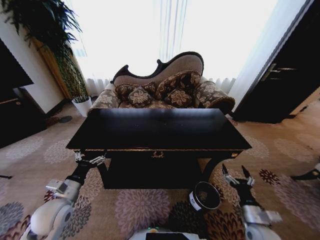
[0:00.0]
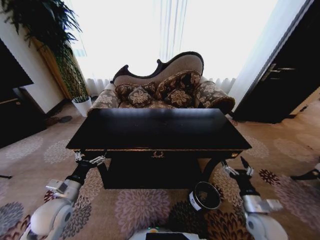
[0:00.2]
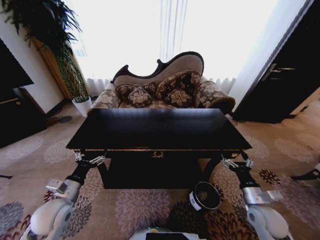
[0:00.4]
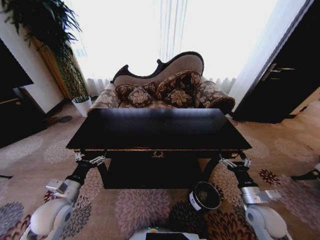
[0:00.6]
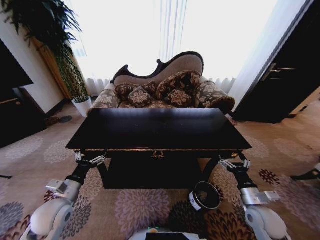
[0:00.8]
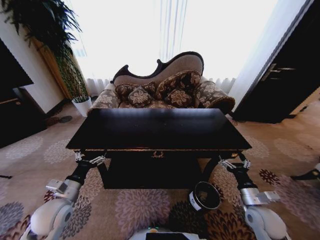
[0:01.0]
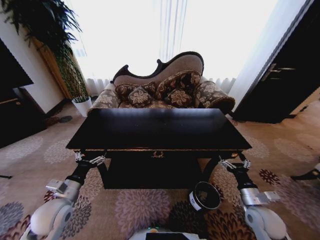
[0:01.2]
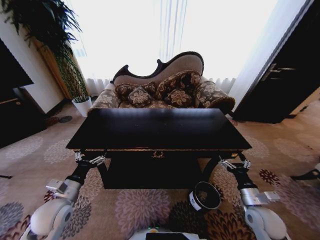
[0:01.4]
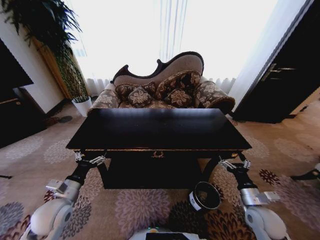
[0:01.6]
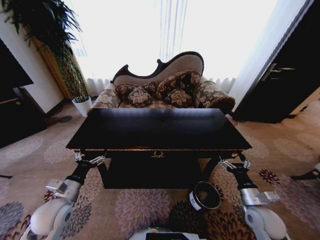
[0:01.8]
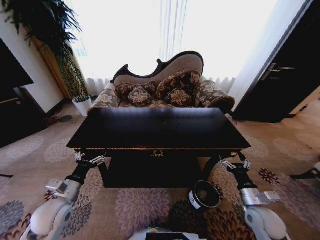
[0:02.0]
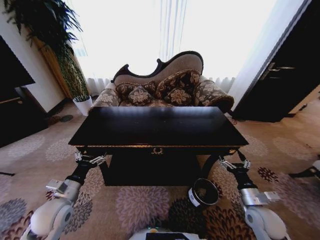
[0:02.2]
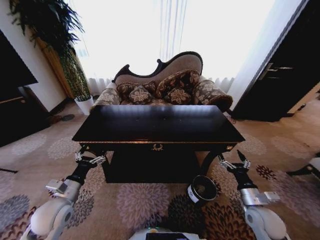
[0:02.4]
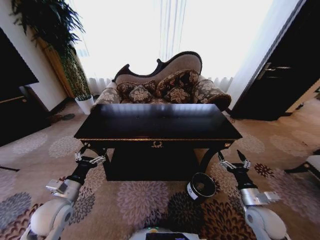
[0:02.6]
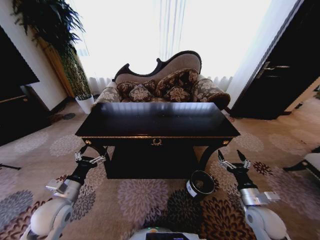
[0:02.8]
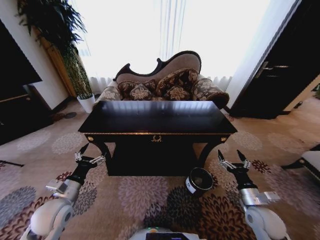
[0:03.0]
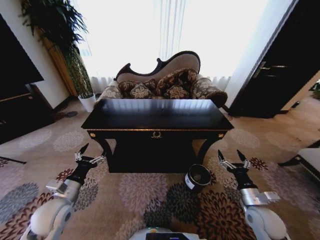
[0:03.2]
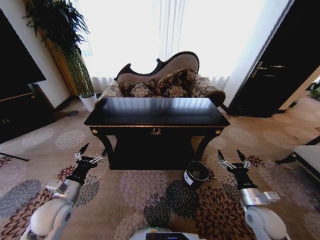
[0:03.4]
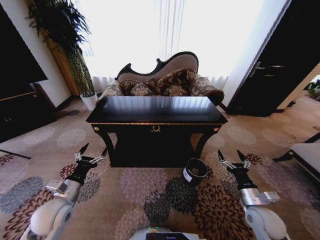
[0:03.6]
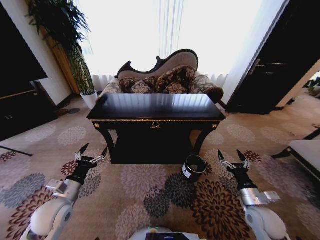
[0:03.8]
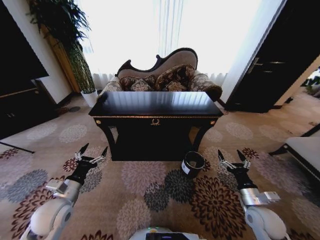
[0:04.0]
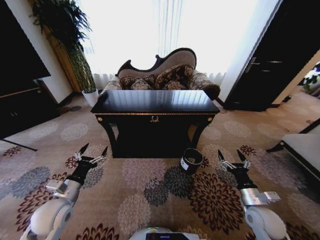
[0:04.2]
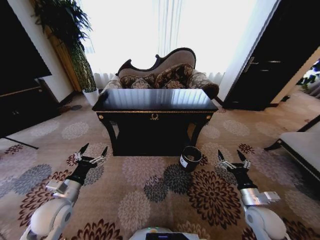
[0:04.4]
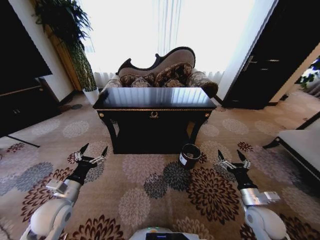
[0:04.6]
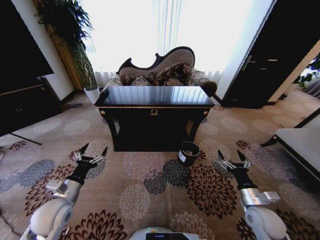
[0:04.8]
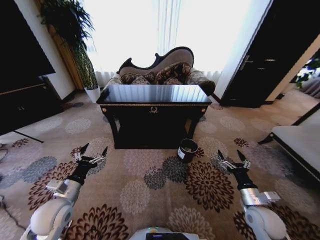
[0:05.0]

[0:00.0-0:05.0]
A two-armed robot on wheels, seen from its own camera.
Task of the whole recording: Move to the front of the table and place the trash on the table into the trash bin.
0:00.0 to 0:01.6: The right gripper goes roughly 5 cm upward.

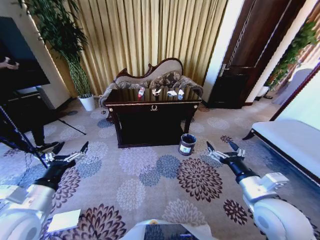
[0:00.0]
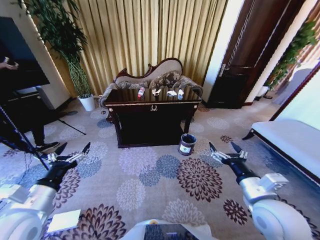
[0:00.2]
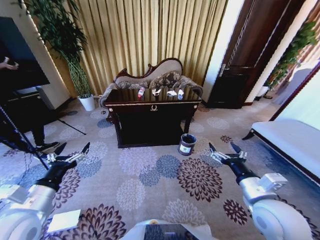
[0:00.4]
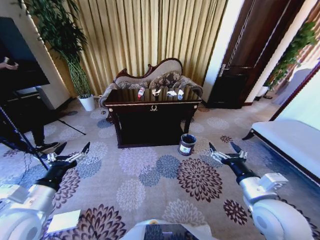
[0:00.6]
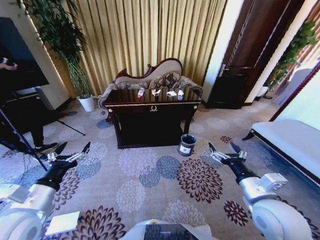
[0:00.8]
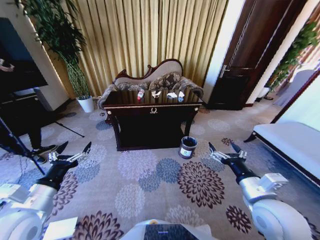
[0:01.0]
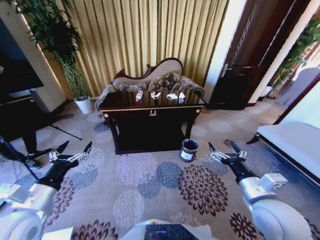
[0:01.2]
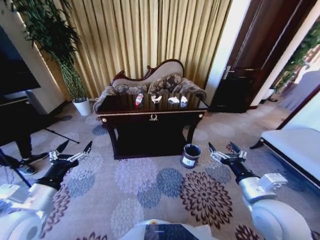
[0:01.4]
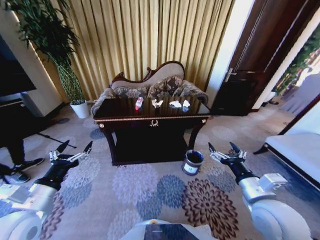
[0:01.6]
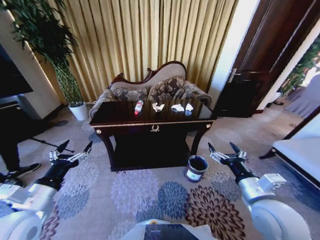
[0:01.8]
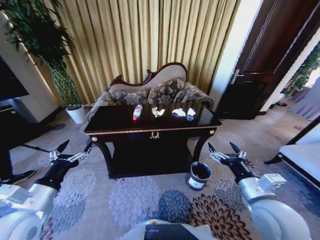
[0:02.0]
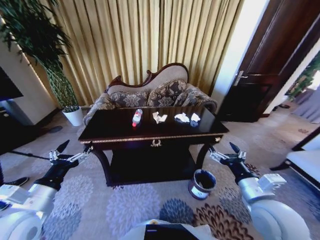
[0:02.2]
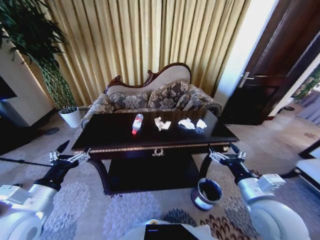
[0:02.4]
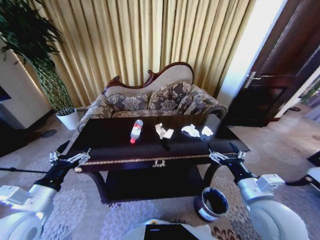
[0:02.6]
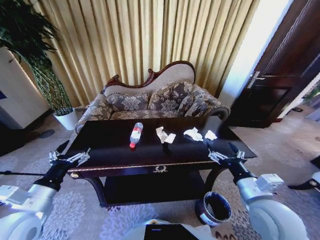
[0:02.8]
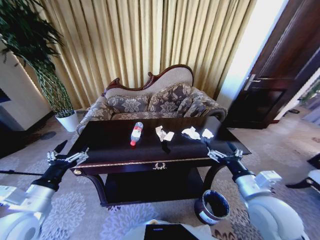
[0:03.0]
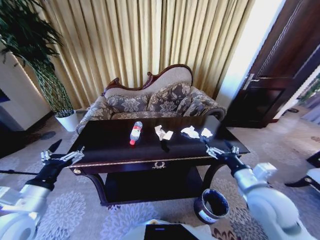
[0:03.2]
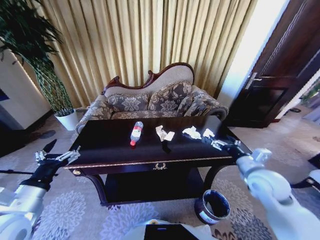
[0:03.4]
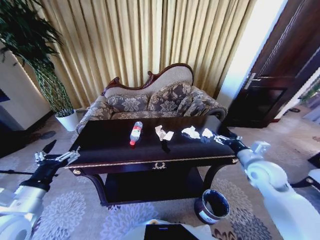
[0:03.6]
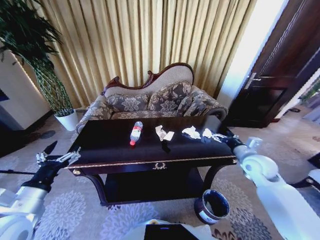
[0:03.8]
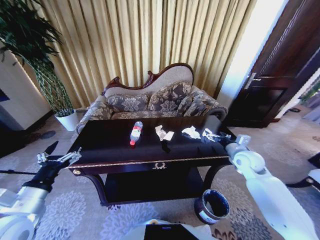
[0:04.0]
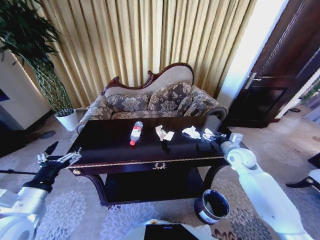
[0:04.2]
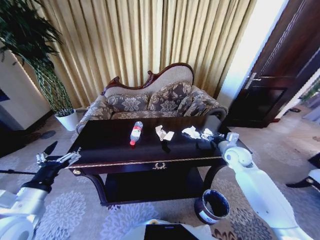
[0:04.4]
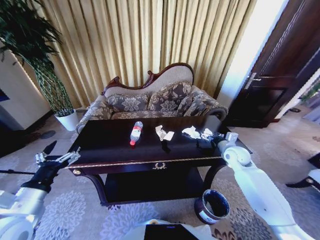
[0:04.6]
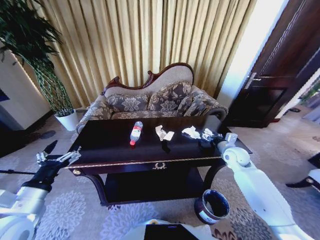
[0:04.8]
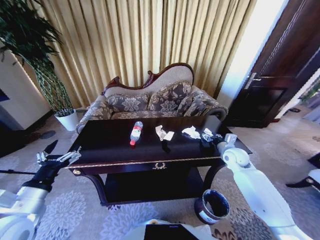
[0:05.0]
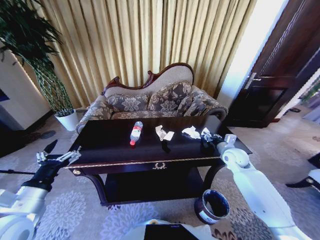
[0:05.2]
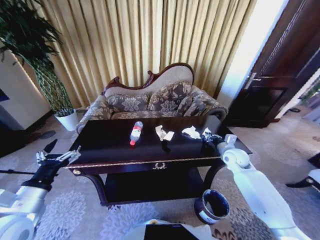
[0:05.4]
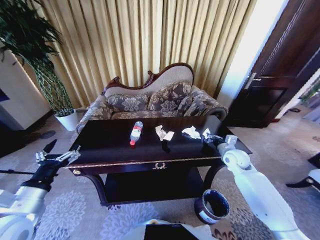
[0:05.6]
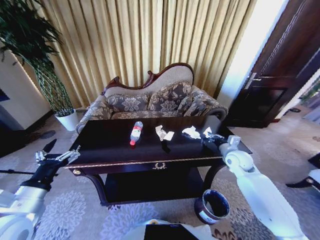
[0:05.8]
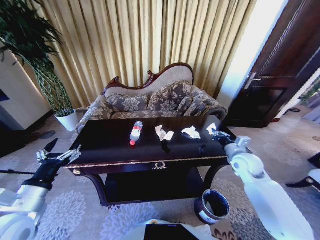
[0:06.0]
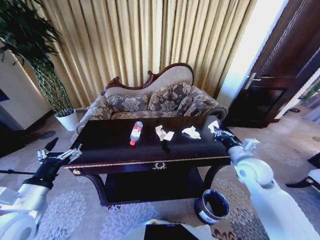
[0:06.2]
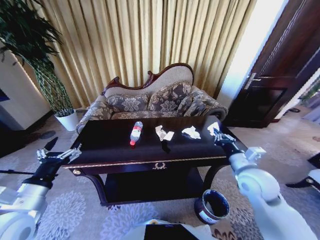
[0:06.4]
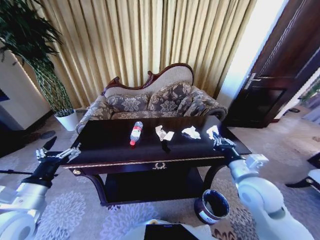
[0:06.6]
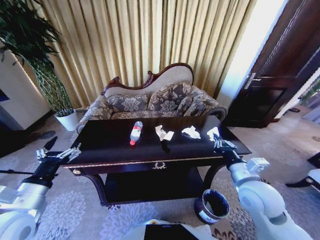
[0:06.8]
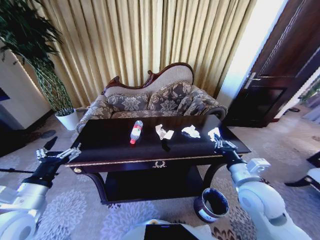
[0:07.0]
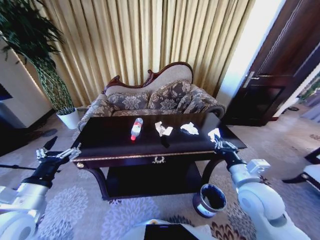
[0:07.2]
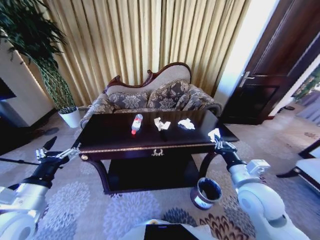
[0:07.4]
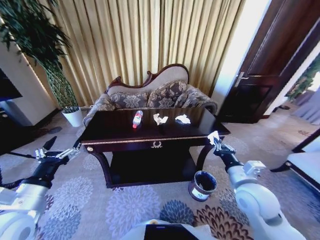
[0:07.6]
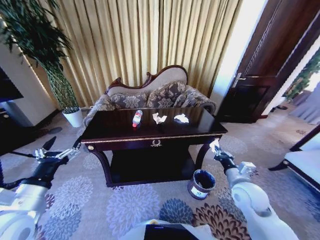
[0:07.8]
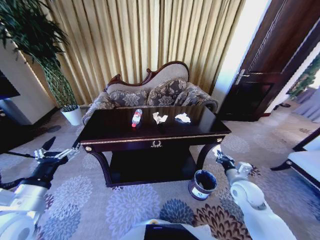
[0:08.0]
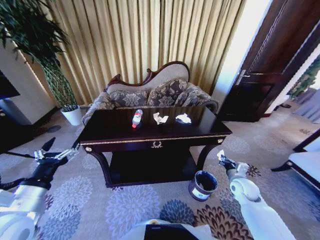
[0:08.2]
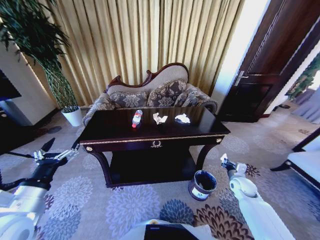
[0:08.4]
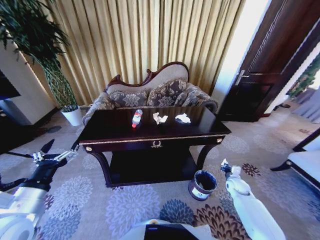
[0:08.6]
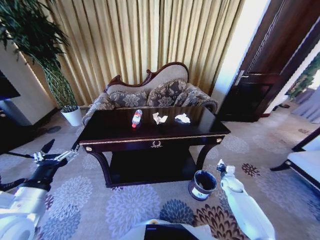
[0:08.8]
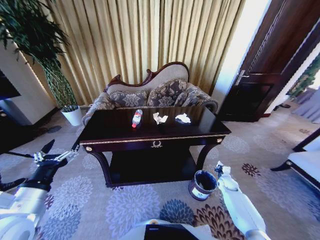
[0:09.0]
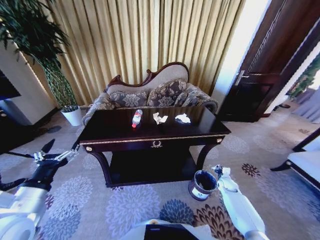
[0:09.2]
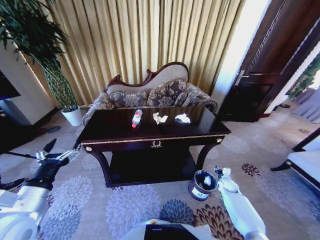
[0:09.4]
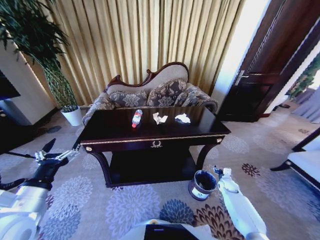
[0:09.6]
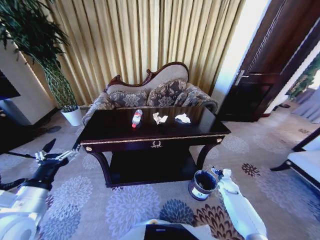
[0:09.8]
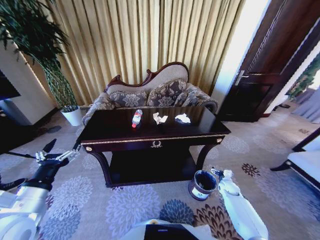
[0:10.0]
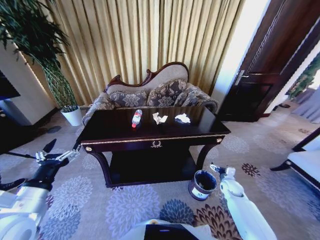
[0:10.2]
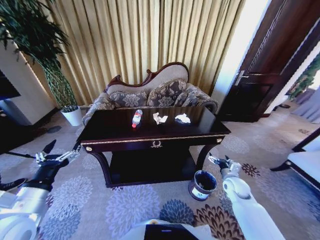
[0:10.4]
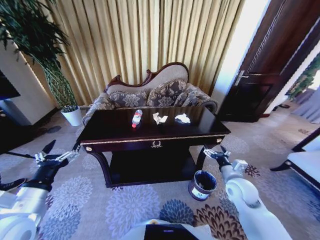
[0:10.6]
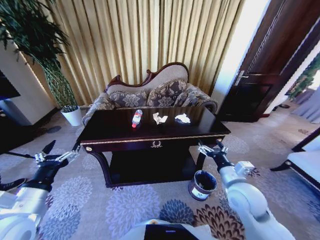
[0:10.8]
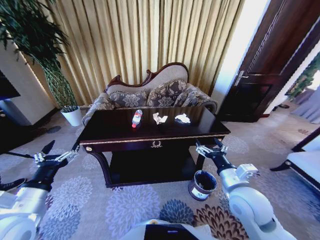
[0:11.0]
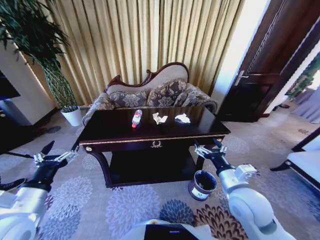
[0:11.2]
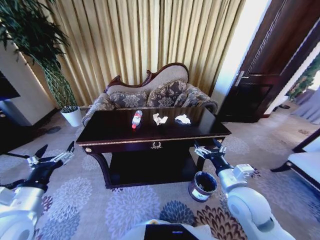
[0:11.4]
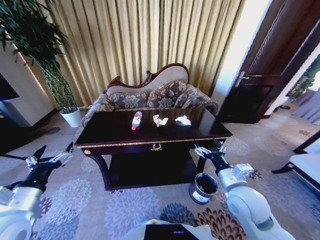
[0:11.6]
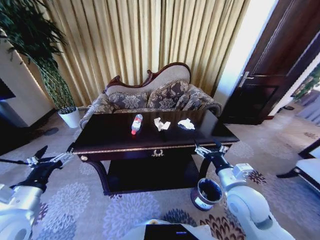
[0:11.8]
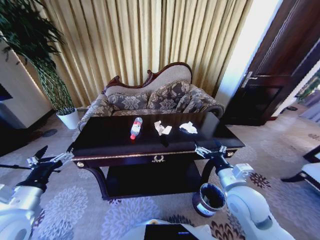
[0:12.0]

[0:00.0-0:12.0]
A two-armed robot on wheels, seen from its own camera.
Task of the whole recording: Move to the front of the table and place the trash on the table into the trash bin.
0:03.0 to 0:04.4: The right gripper shifts approximately 20 cm forward.
0:04.4 to 0:06.0: The right gripper moves backward, about 5 cm, and closes its fingers.
0:06.0 to 0:07.6: The right gripper heads backward and to the left, covering approximately 15 cm.
0:07.6 to 0:09.0: The right gripper is displaced downward, forward and to the right by some 35 cm.
0:09.0 to 0:10.4: The right gripper heads upward, to the left and backward, covering about 15 cm, and opens up.
0:10.4 to 0:12.0: The right gripper moves upward, to the left and backward, some 20 cm.

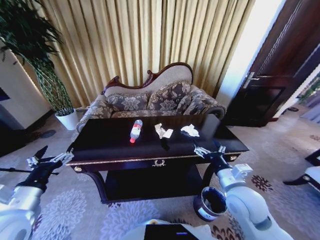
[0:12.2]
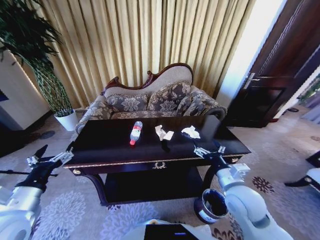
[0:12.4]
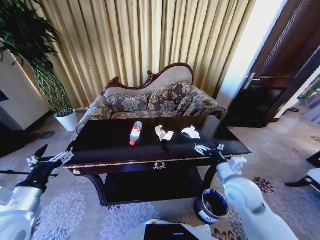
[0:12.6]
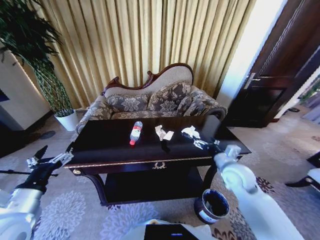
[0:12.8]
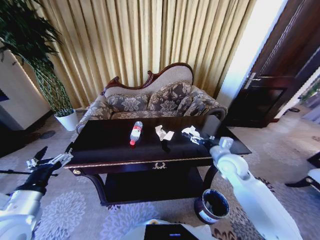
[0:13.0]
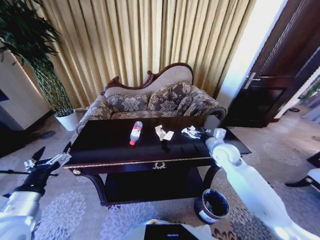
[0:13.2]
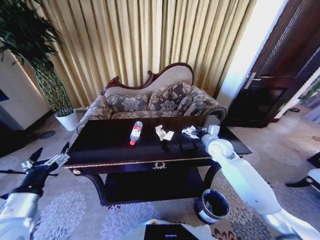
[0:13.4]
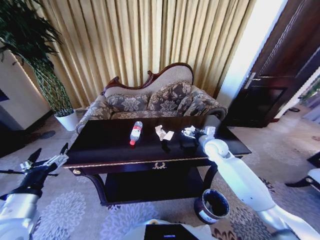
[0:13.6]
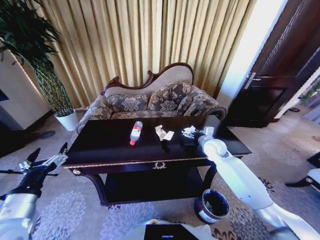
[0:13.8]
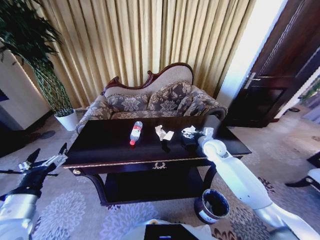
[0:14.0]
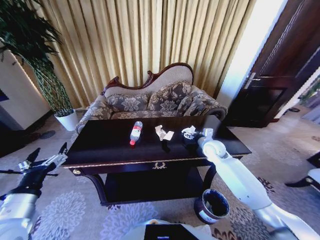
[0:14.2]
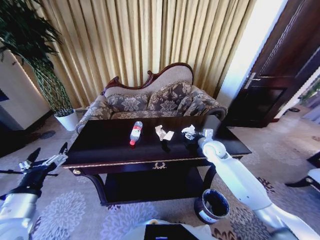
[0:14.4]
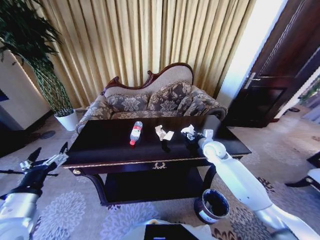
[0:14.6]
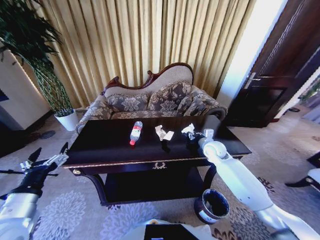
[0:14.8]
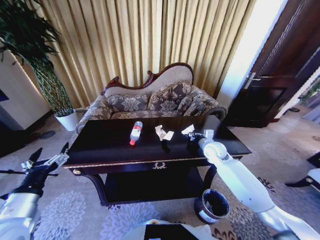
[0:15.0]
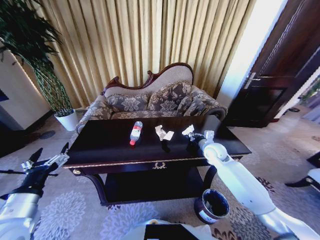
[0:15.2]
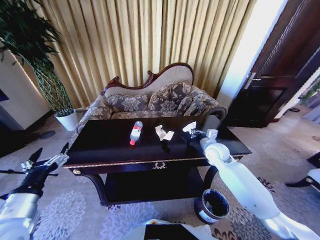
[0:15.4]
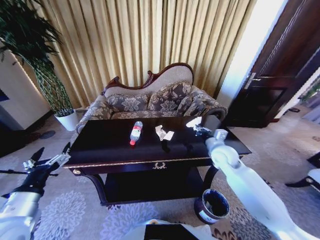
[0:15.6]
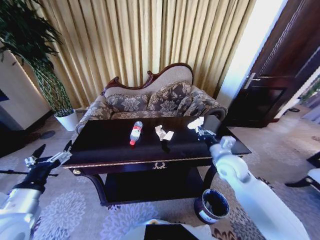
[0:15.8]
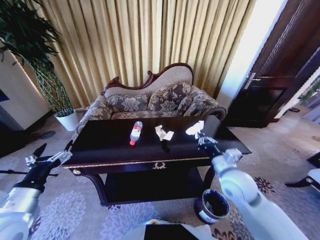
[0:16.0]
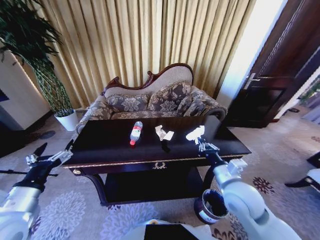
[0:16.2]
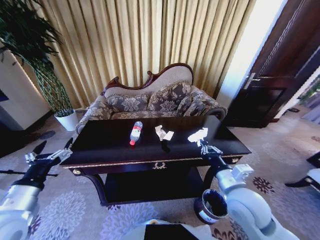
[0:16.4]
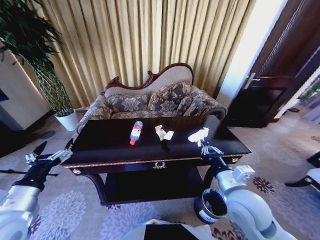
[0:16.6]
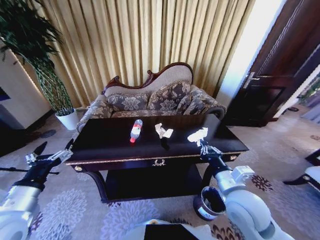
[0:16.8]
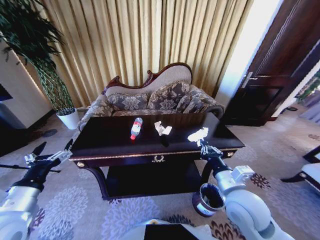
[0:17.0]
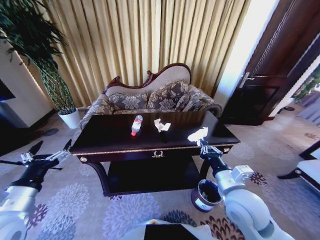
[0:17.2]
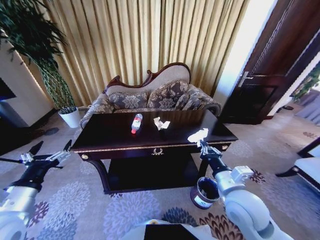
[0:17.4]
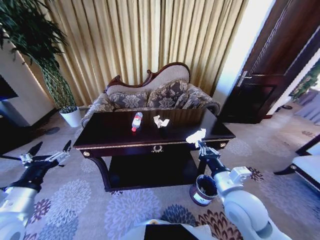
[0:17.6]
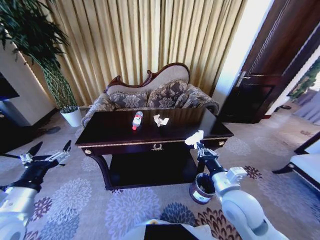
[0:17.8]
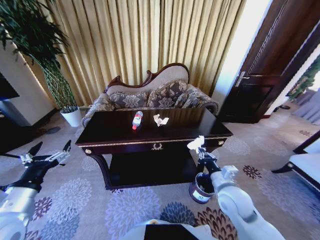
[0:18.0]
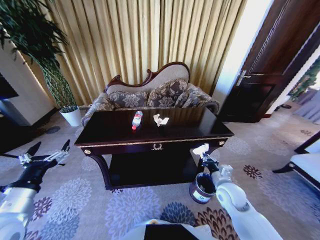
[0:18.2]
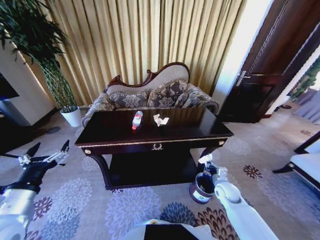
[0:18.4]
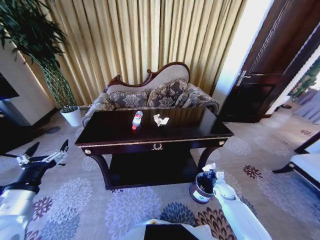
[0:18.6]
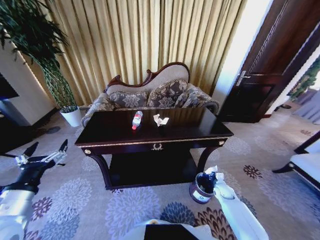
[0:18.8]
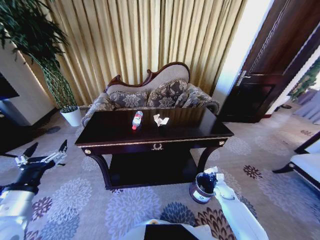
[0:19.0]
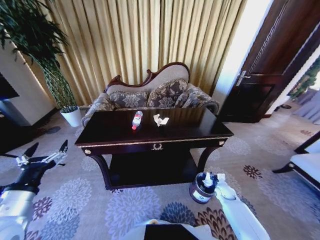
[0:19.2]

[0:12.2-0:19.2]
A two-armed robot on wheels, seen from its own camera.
Task of the whole recording: Move to the front of the table and place the trash on the table into the trash bin.
0:12.2 to 0:13.6: The right gripper moves forward, about 25 cm.
0:13.6 to 0:15.0: The right gripper closes up.
0:15.0 to 0:16.4: The right gripper travels backward by some 25 cm.
0:17.8 to 0:19.2: The right gripper shifts about 35 cm downward, to the right and forward.
